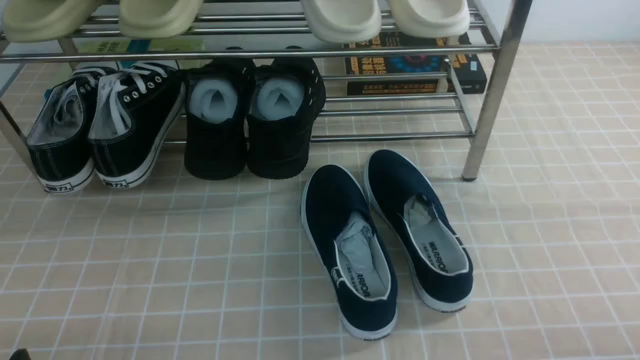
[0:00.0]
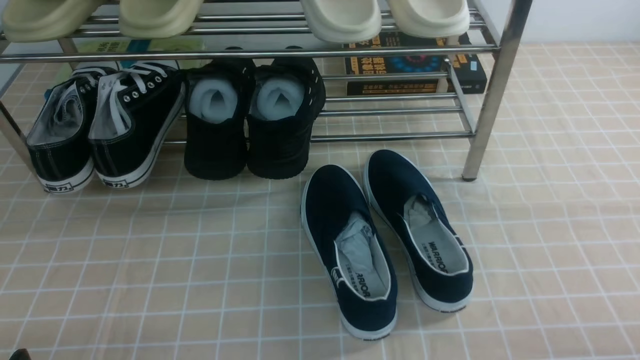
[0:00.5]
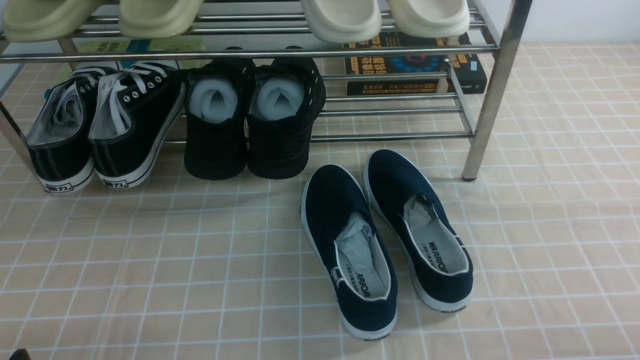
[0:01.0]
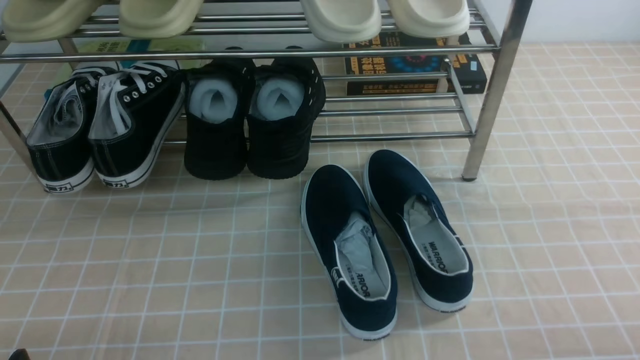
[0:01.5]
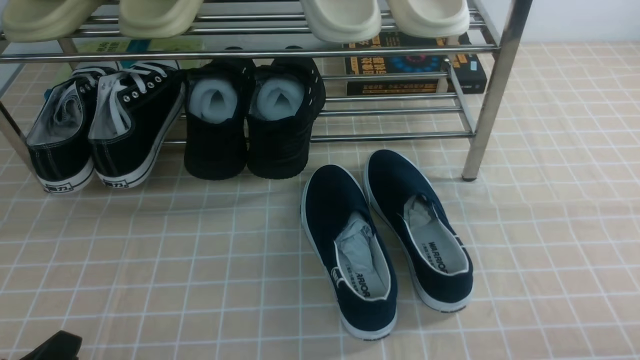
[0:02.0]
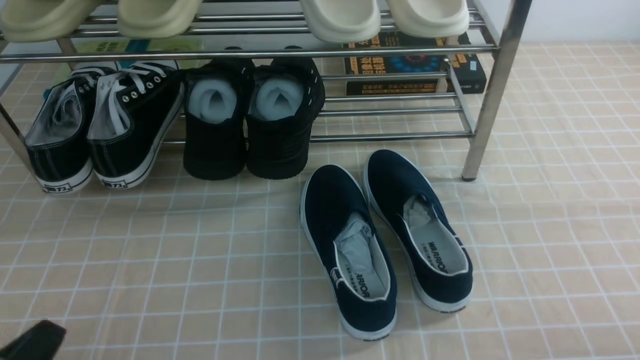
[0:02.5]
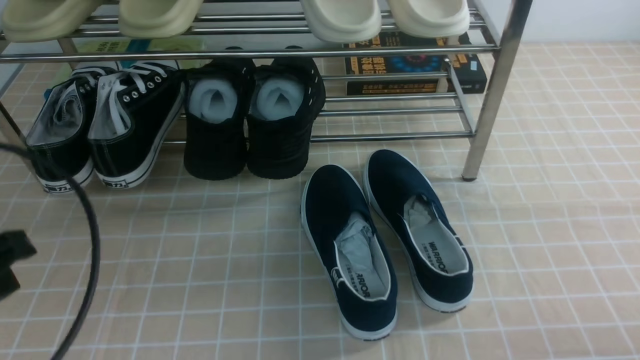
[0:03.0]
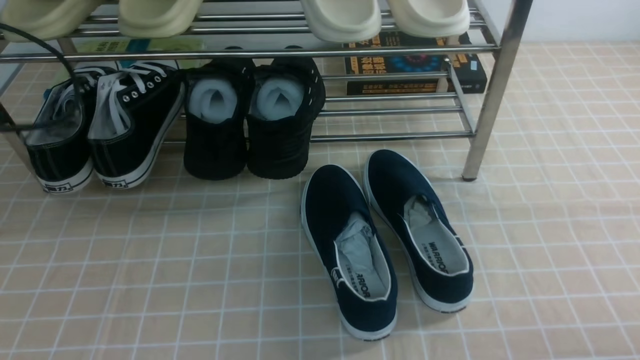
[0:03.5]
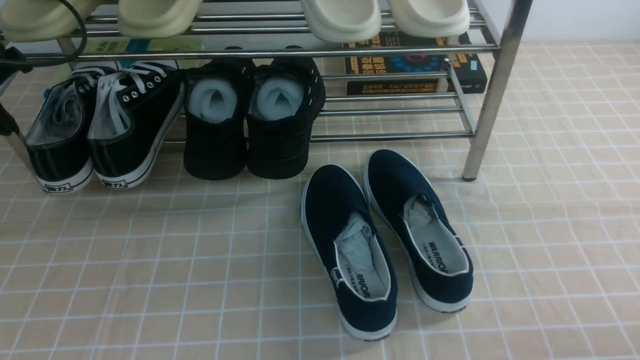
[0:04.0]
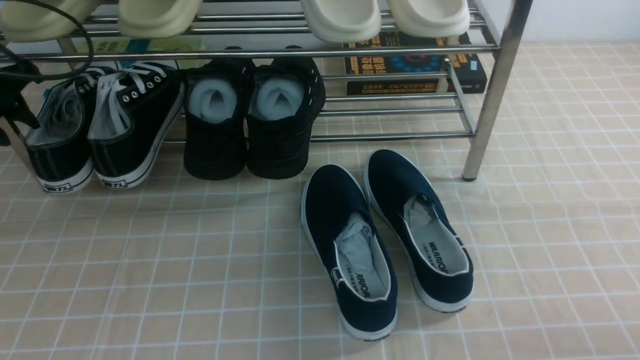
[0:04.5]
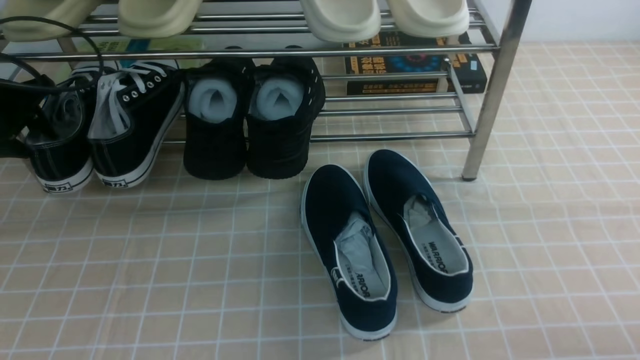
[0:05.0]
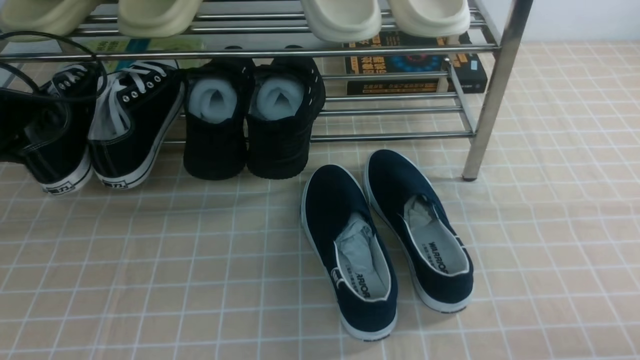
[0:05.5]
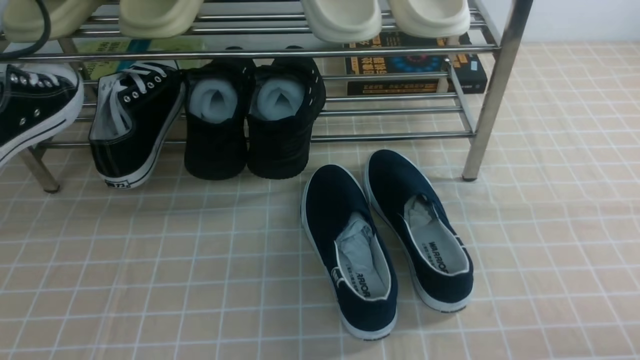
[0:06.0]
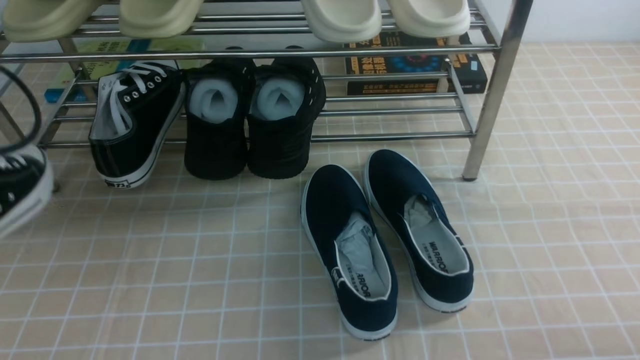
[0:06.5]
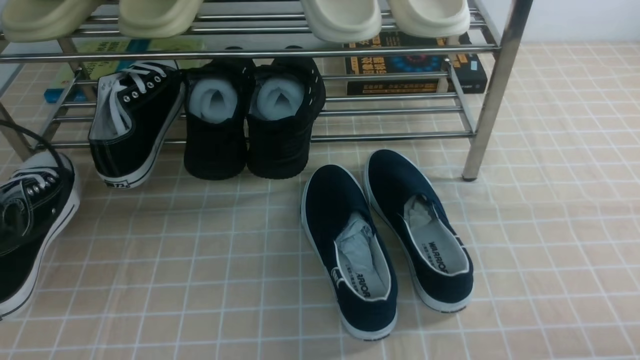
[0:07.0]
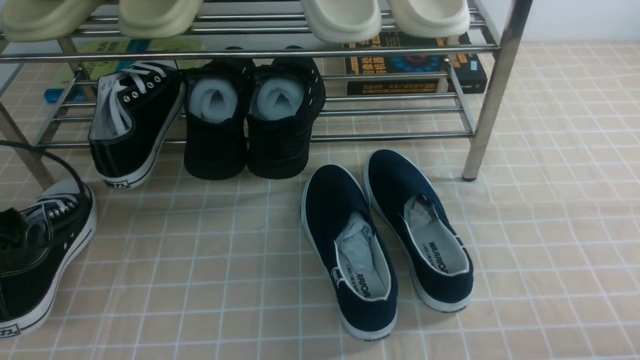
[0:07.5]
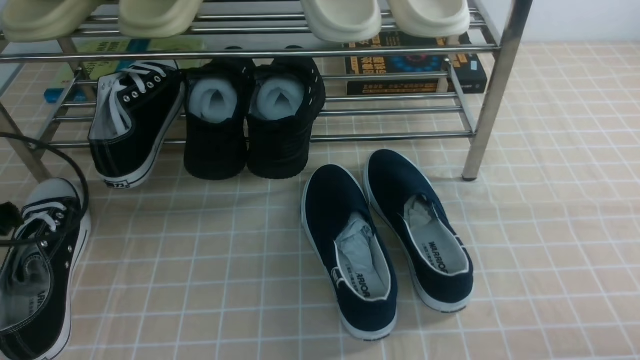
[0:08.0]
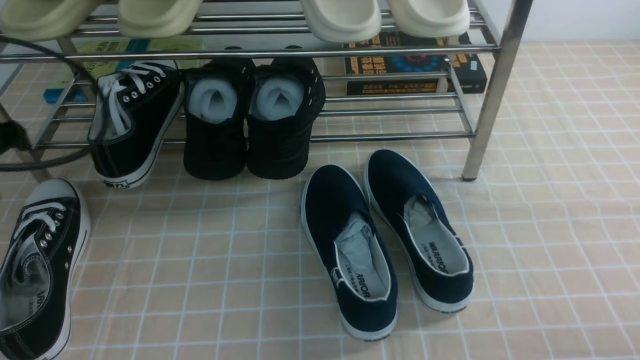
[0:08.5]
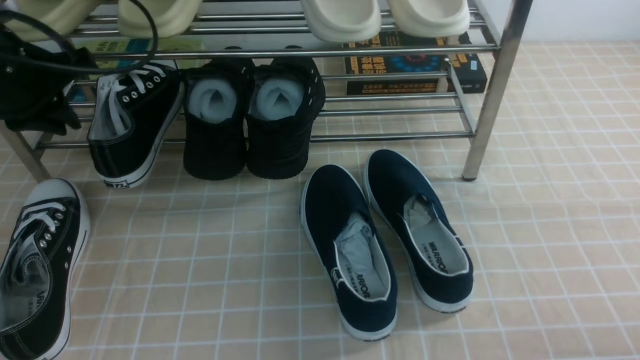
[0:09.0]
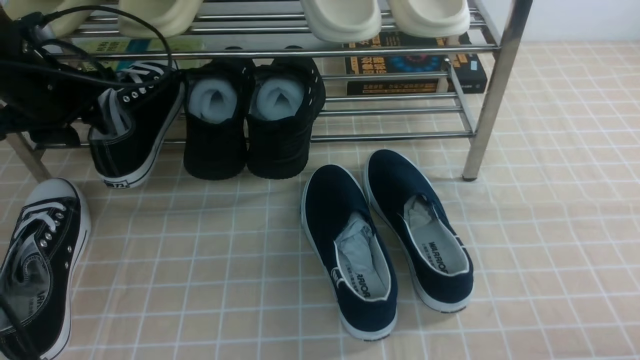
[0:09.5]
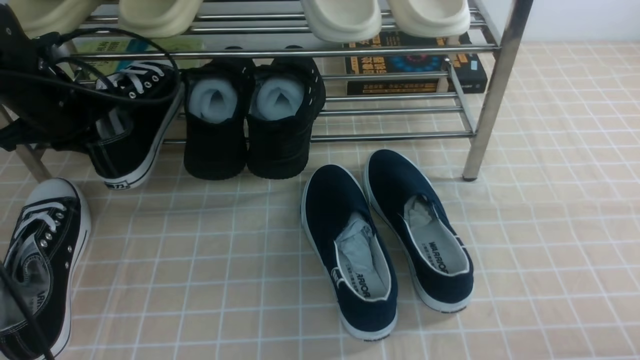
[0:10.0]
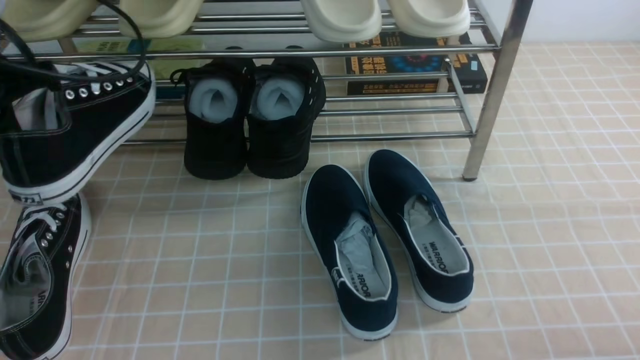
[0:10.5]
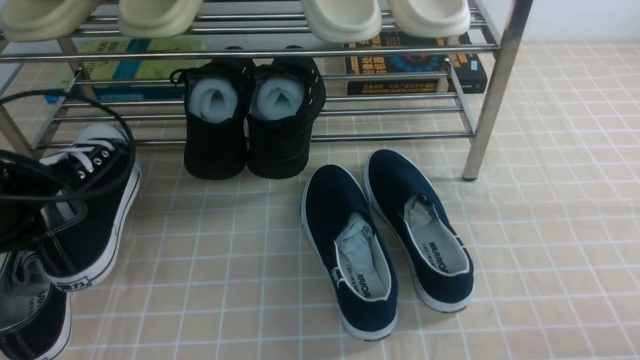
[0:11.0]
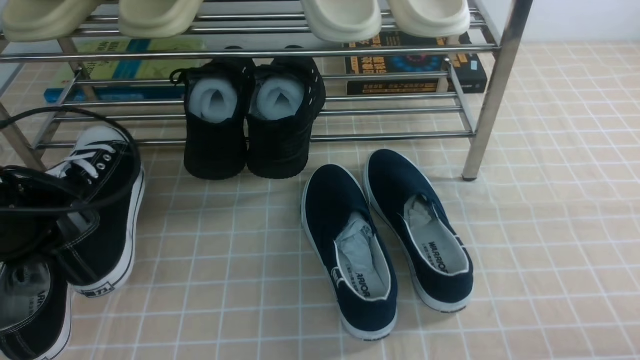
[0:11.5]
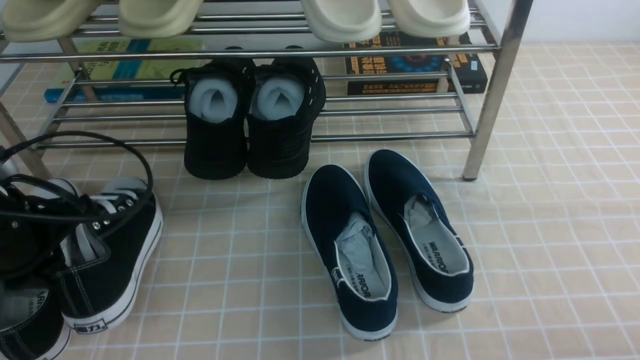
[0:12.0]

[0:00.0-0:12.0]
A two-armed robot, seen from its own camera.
Step, 0:00.0 to 0:05.0: use the left arm to clamp a shoe on the left side of the shoe rack.
Step, 0:05.5 to 0:07.5: Use your left arm to remove the clamped shoe from the shoe rack and put it down.
Step, 0:08.0 to 0:10.0: use the left arm to clamp a shoe on the left side of the shoe rack.
0:02.0 to 0:04.0: The left gripper is displaced forward and upward by approximately 35 cm, and closes.
0:04.0 to 0:06.0: The left gripper is displaced backward and upward by roughly 10 cm, and opens and closes again.
0:06.0 to 0:08.0: The left gripper goes roughly 15 cm downward, and opens.
0:08.0 to 0:10.0: The left gripper is displaced forward by some 15 cm, and closes.
0:10.0 to 0:12.0: The left gripper travels backward by some 15 cm.

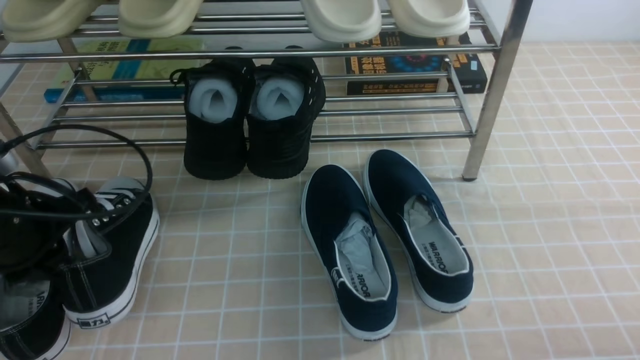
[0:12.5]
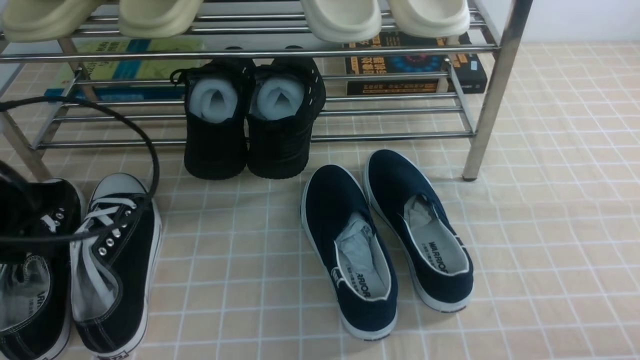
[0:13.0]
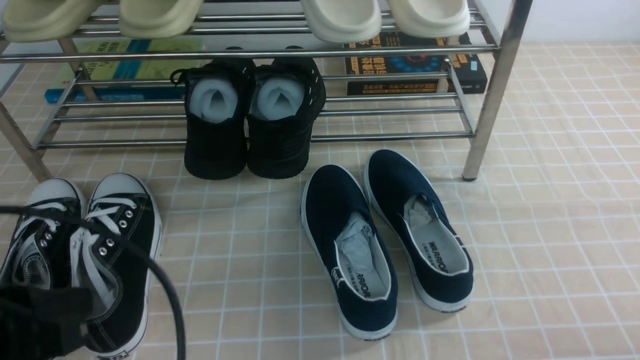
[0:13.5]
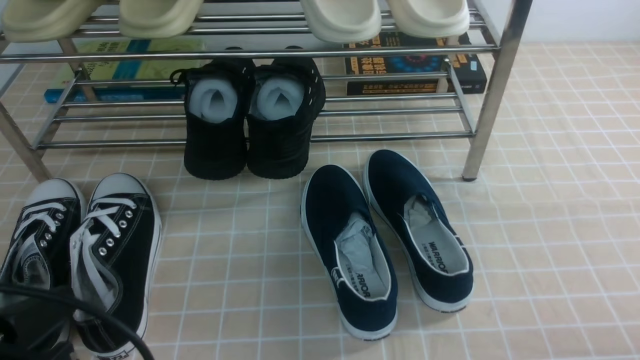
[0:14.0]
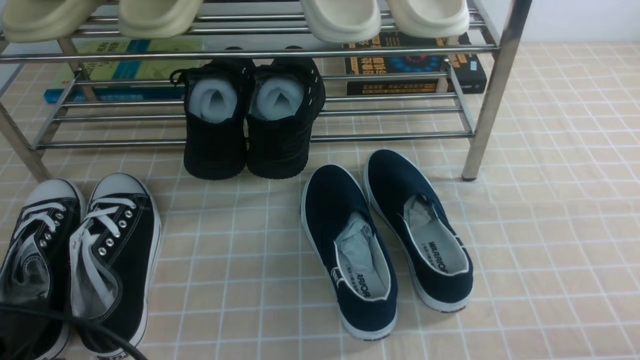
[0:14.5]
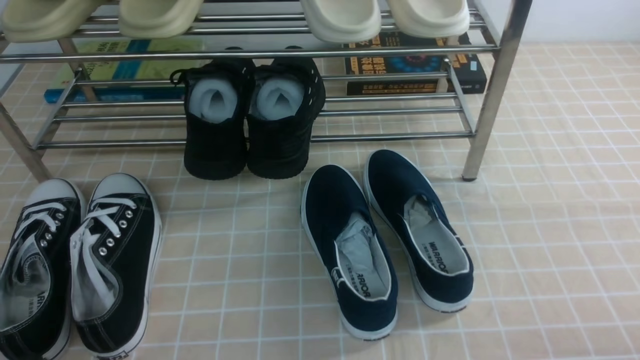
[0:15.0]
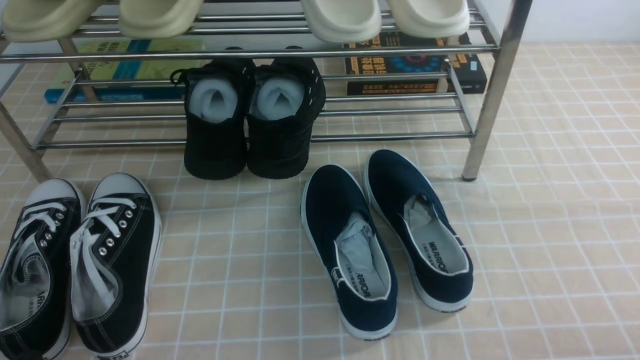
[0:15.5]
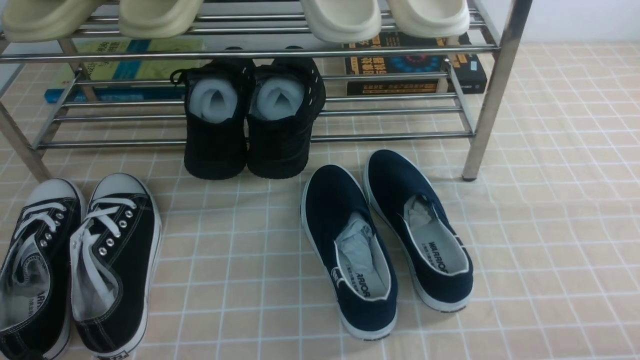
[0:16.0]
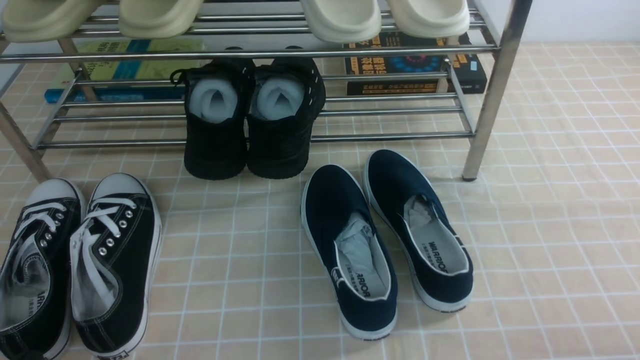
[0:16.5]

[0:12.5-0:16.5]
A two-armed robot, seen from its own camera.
0:12.5 to 0:14.5: The left gripper is displaced backward by approximately 20 cm.
0:14.5 to 0:16.5: The left gripper is displaced downward by roughly 5 cm.
